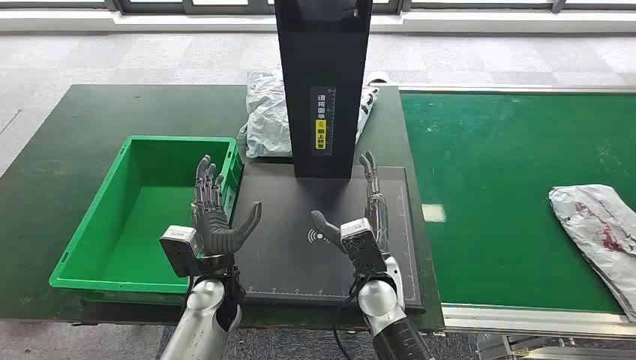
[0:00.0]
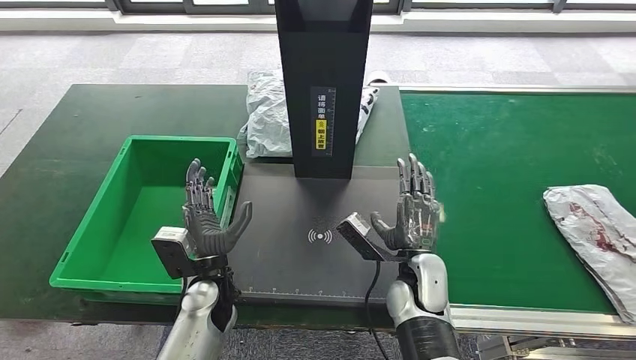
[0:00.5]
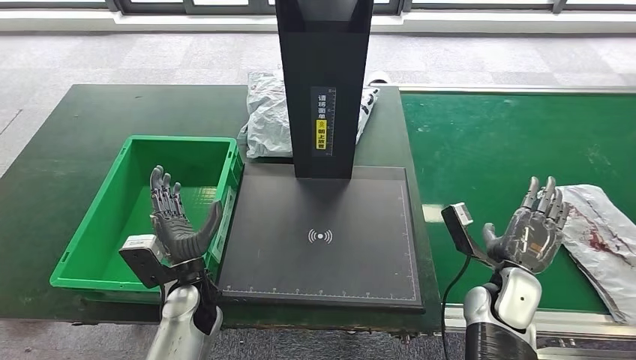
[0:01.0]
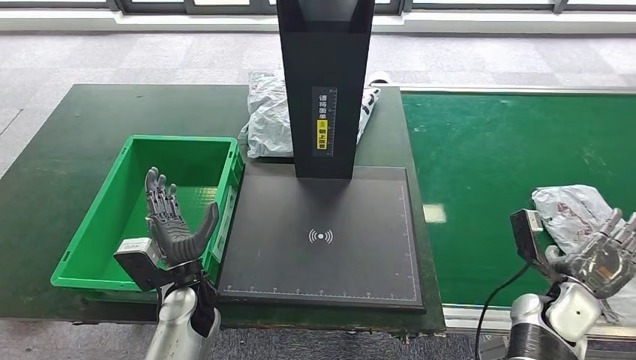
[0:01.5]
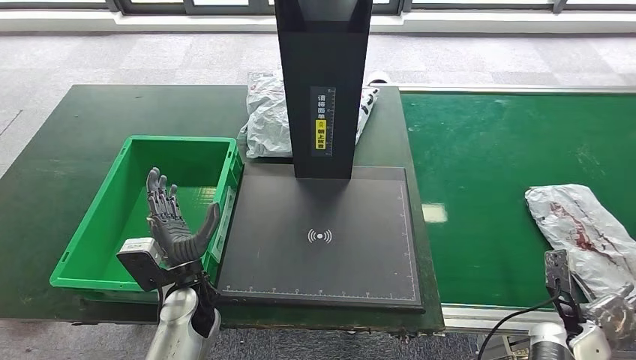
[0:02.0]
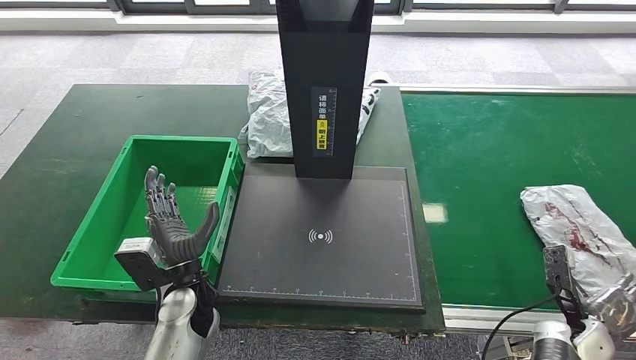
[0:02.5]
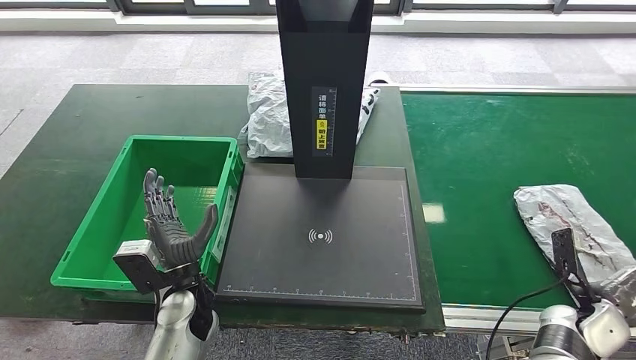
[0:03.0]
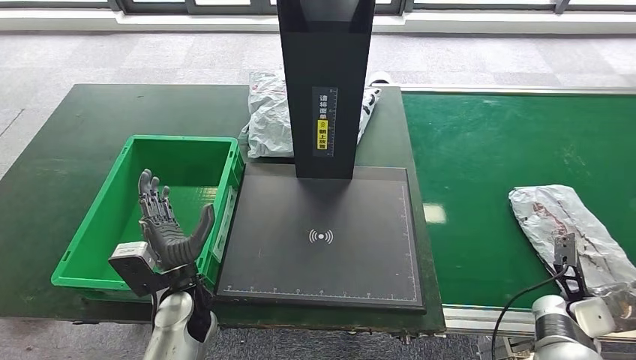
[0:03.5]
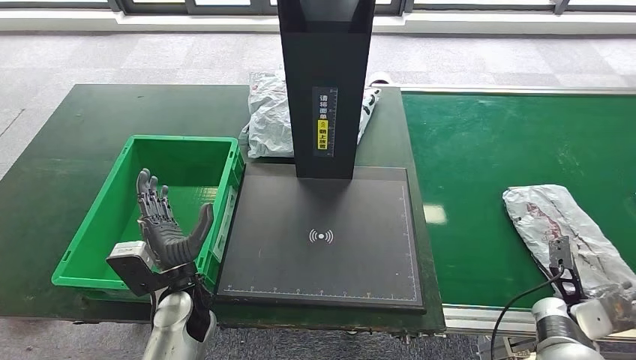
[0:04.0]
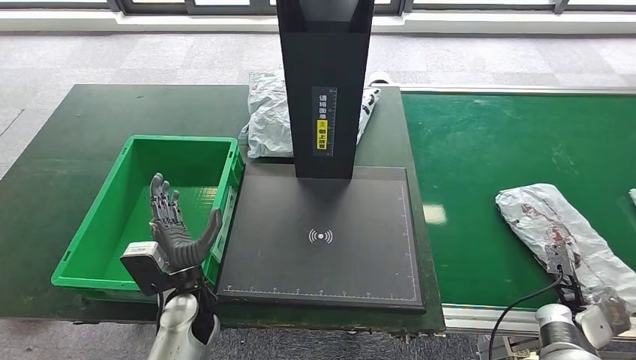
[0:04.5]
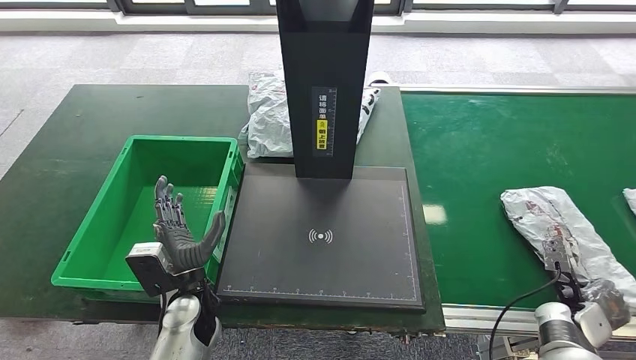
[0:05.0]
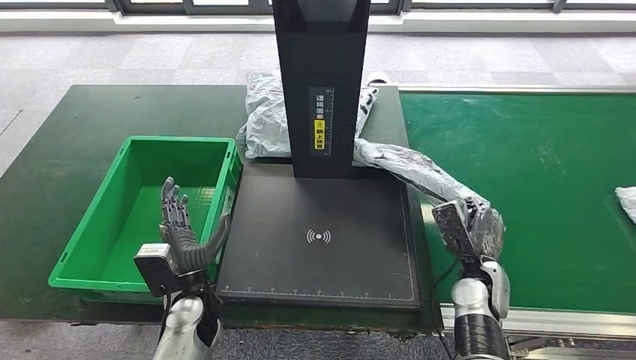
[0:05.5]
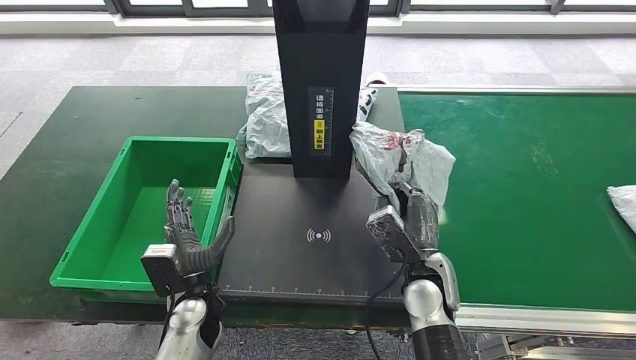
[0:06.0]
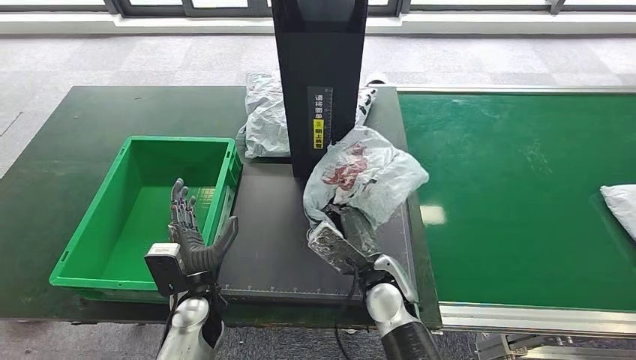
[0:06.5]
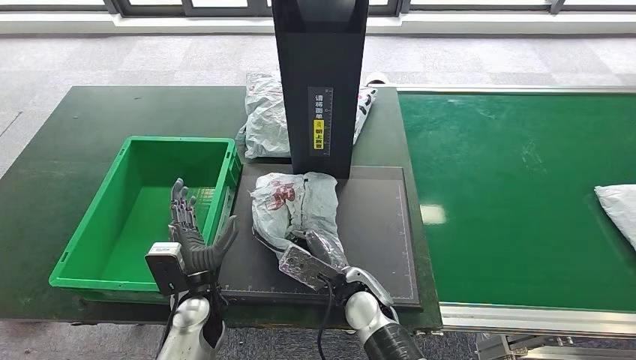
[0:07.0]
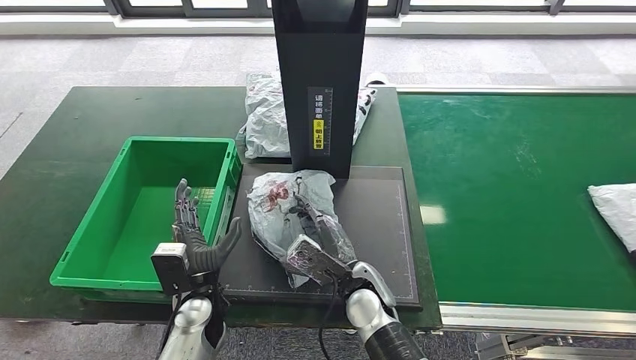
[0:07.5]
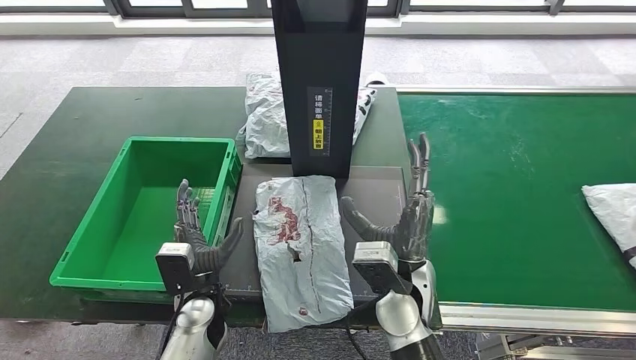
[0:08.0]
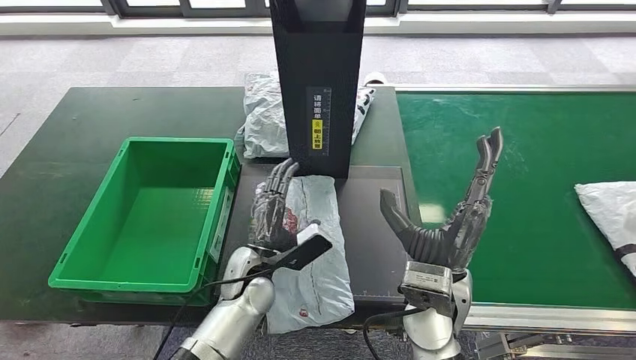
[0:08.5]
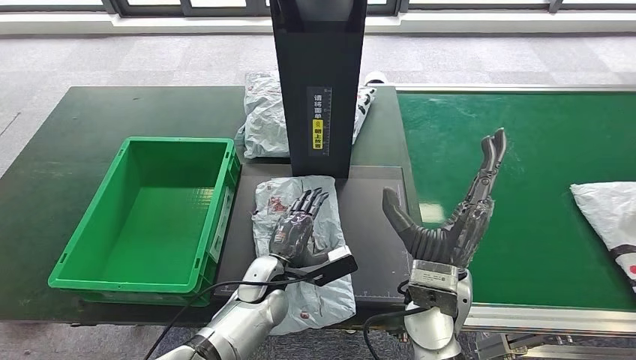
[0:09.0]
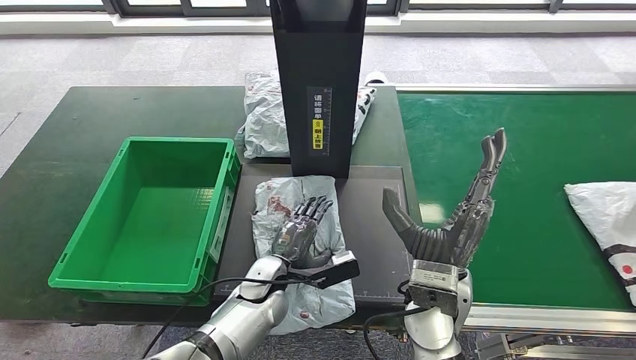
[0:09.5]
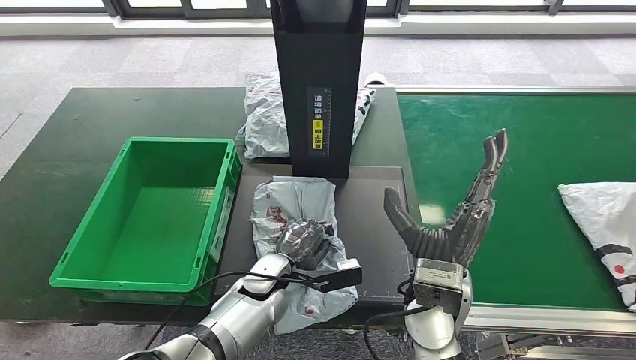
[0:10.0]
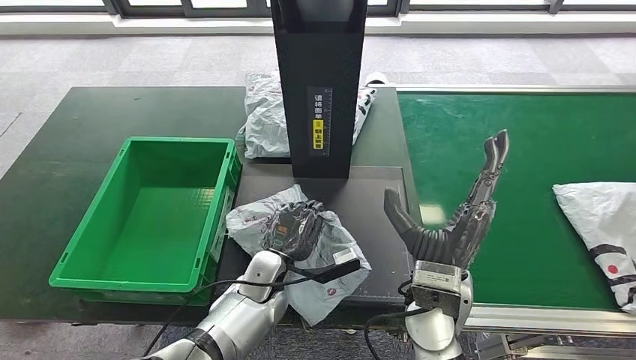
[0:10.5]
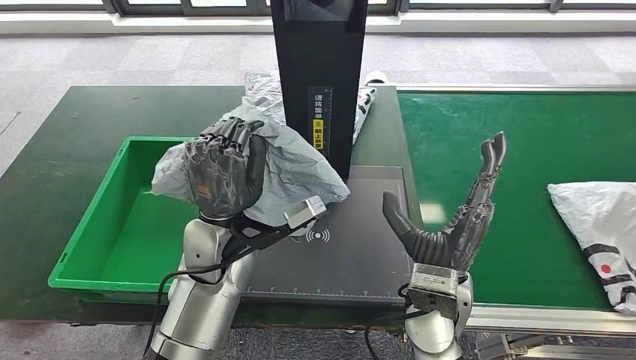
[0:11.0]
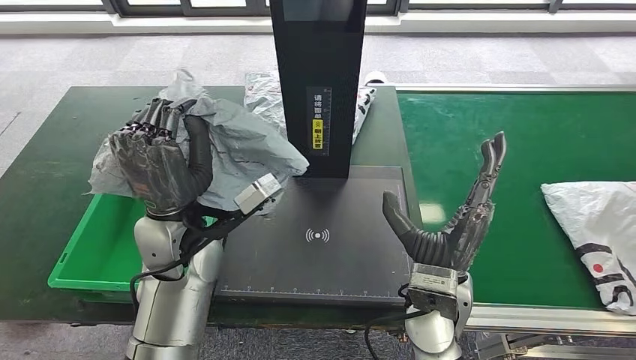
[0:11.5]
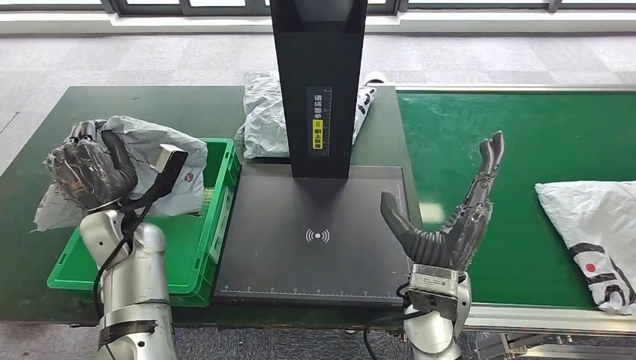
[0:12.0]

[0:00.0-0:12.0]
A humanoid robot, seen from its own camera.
Step, 0:00.0 to 0:06.0: Take the parcel off the conveyor belt.
Step, 0:06.5 to 0:08.5: Place the parcel onto the inbound machine.
Step, 0:09.0 to 0:11.5: Pick up the parcel from the inbound machine.
0:06.0 to 0:08.0: The right hand travels to the left by about 5 cm.
0:08.0 to 0:10.0: The left hand goes some 10 cm to the right, while the right hand changes place by approximately 5 cm.

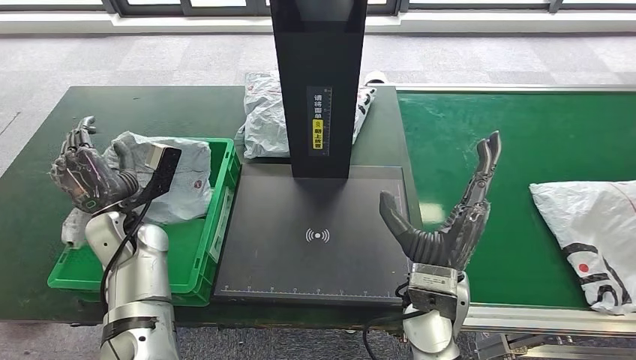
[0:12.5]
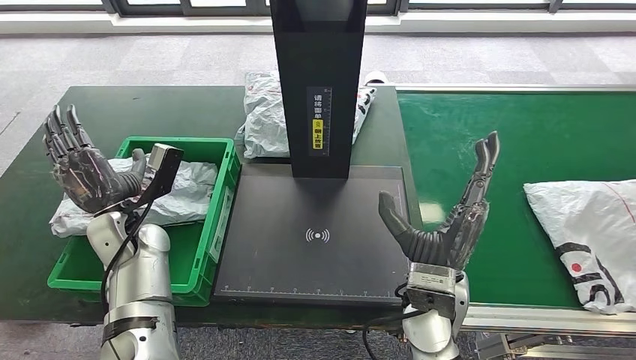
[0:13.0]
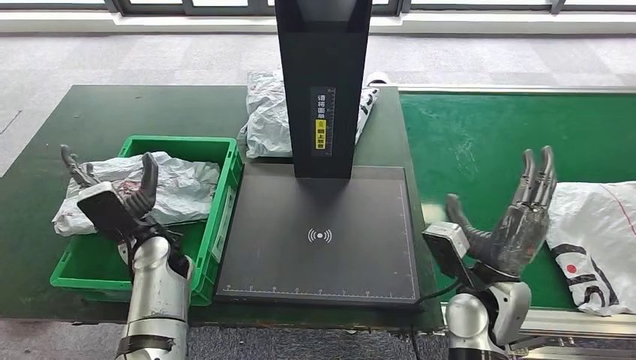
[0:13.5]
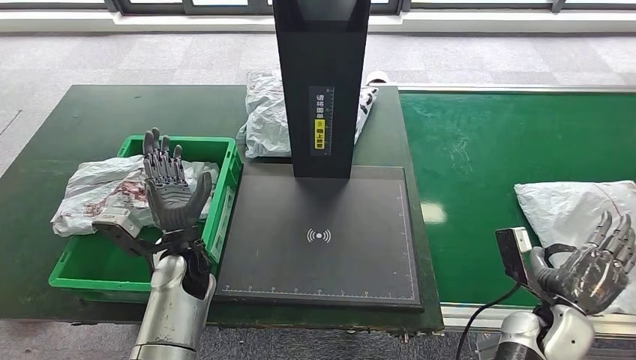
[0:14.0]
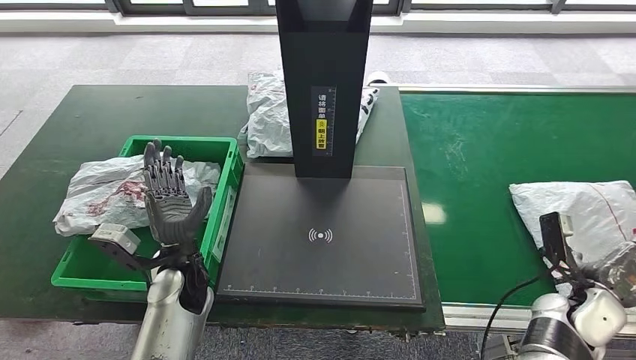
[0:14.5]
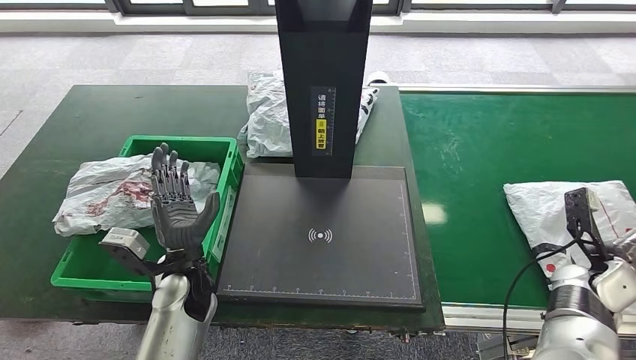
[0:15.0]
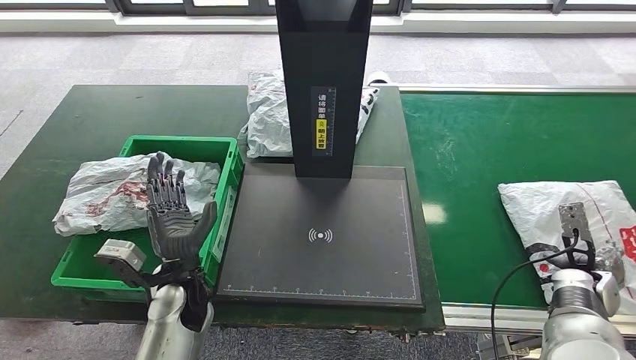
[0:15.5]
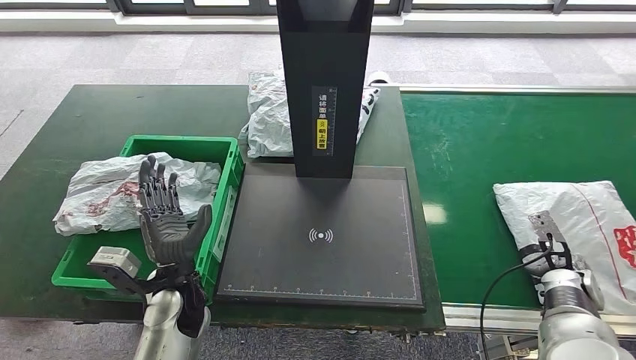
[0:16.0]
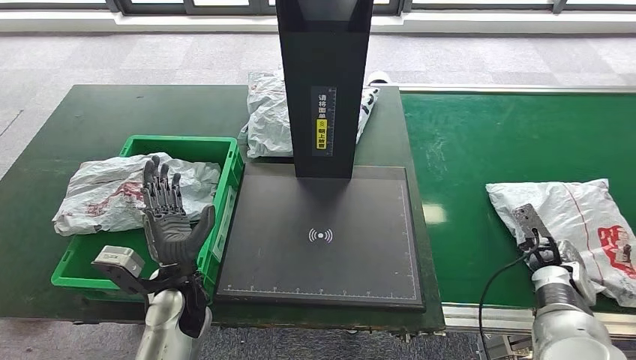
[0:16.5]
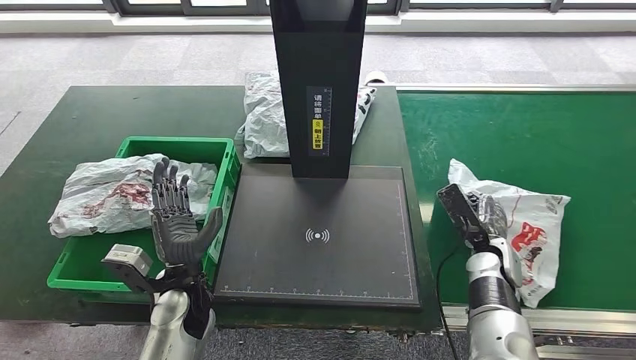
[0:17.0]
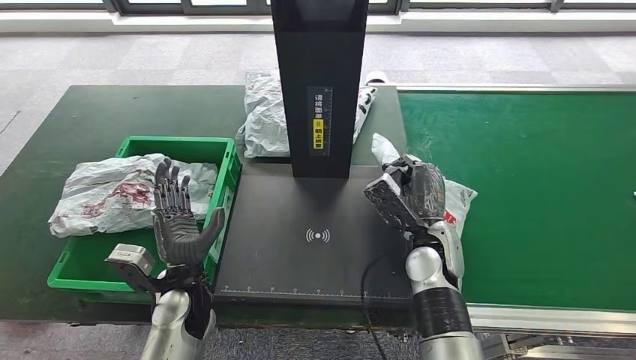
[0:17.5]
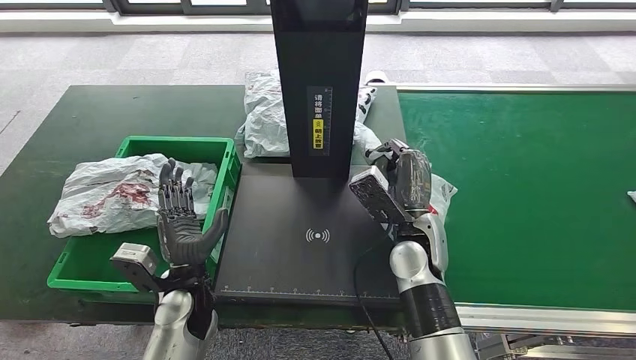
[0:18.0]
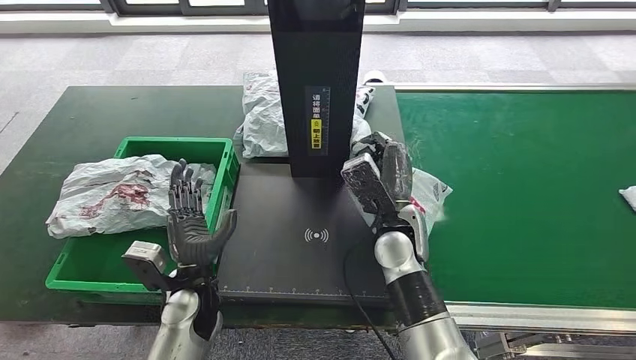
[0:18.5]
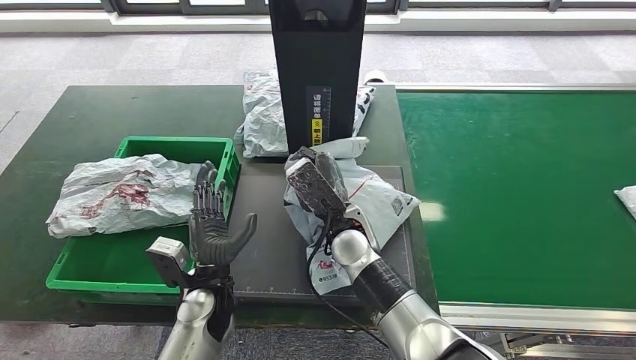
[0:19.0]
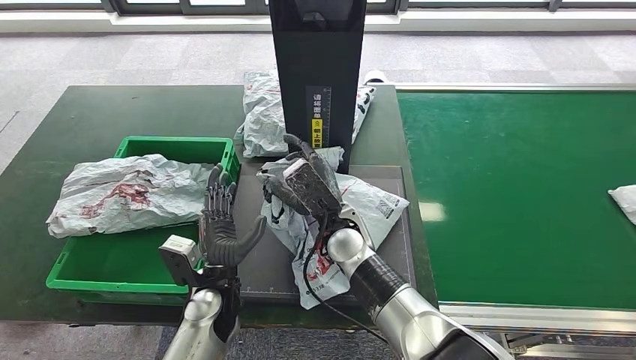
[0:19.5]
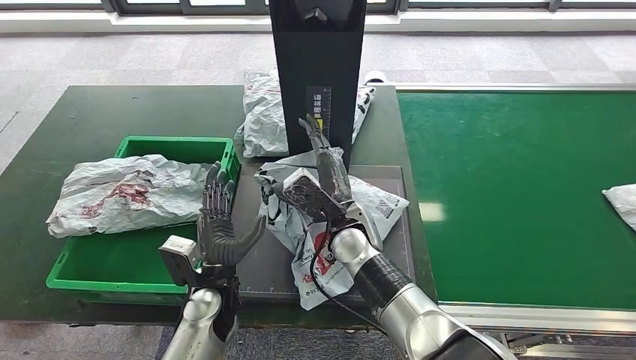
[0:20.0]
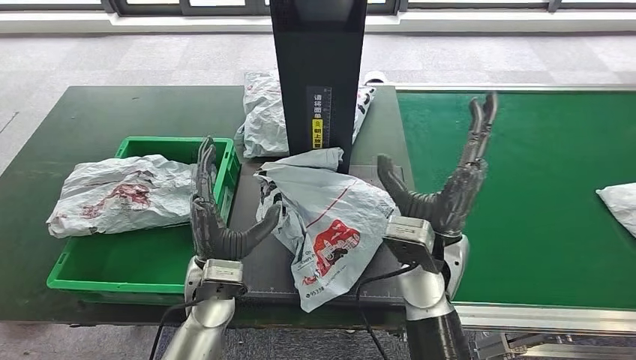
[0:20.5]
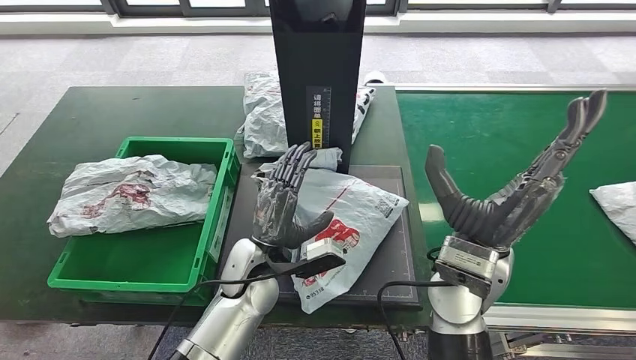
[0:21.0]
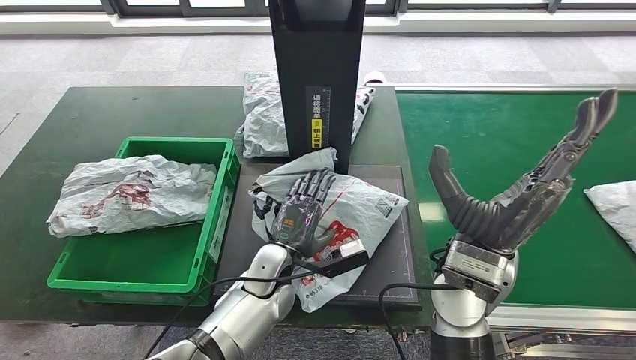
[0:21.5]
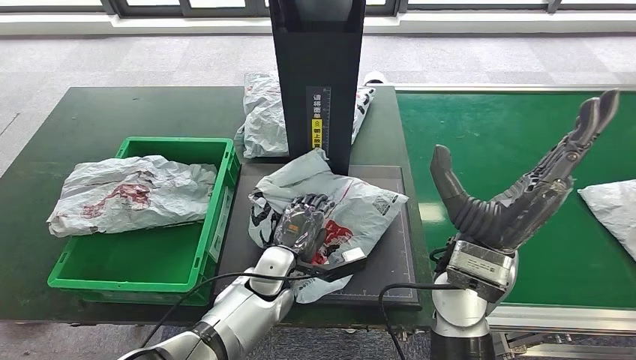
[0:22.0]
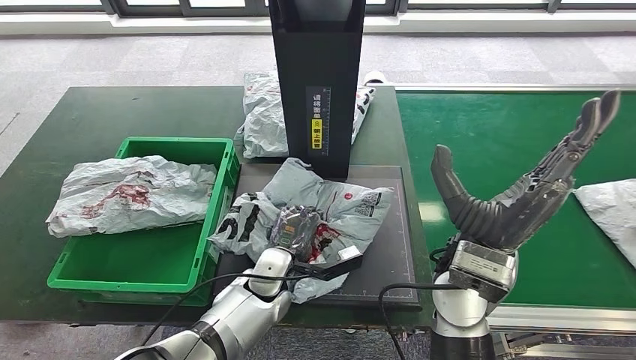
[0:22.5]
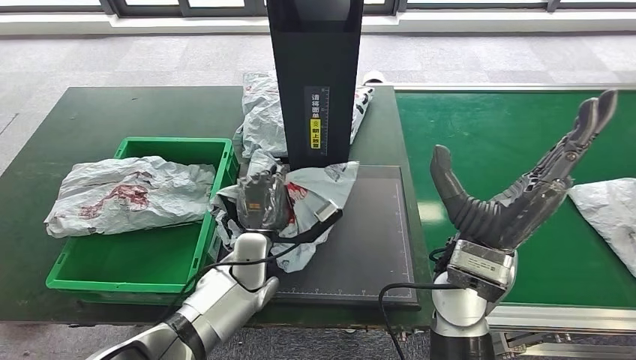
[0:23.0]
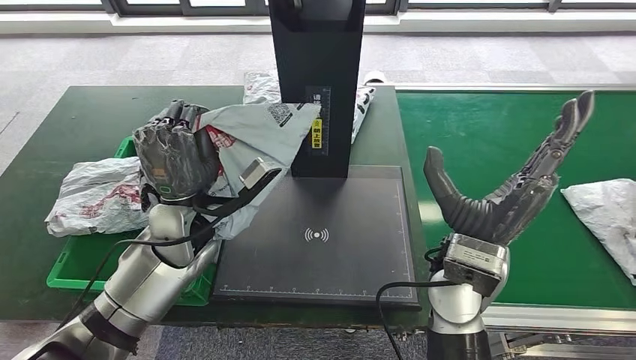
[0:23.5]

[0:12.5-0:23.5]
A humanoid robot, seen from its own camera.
Step, 0:12.5 to 0:14.0: Put the parcel inside the courier box.
Step, 0:14.5 to 0:18.5: Pick up the parcel from the conveyor belt.
Step, 0:19.0 to 0:21.0: Place the parcel onto the inbound machine.
Step, 0:21.5 to 0:23.5: Pick up the parcel from the inbound machine.
0:14.5 to 0:16.0: The right hand travels forward by some 5 cm.
0:18.0 to 0:20.0: The right hand heads to the left, covering about 10 cm.
